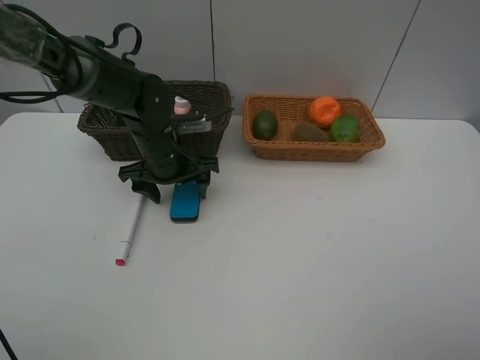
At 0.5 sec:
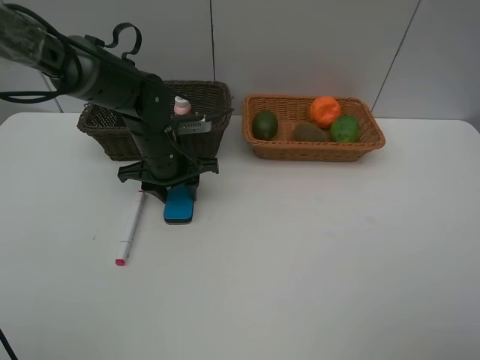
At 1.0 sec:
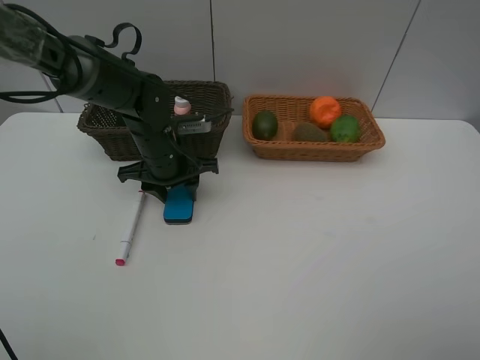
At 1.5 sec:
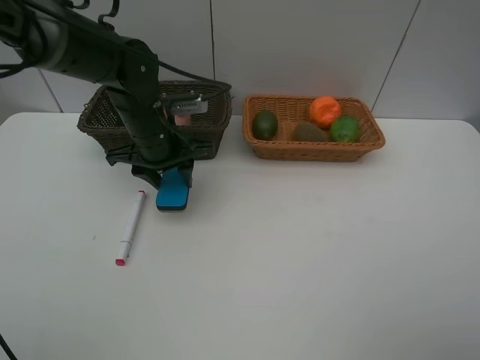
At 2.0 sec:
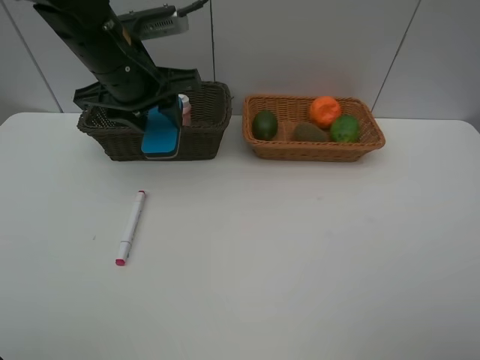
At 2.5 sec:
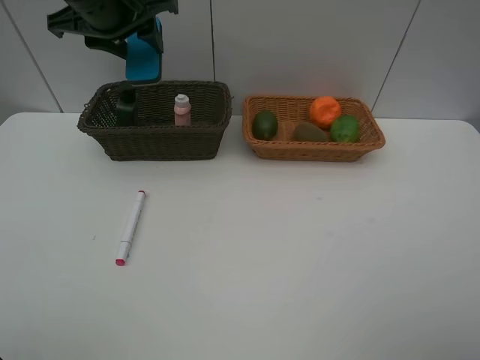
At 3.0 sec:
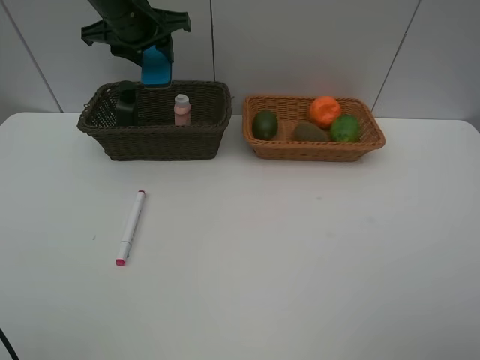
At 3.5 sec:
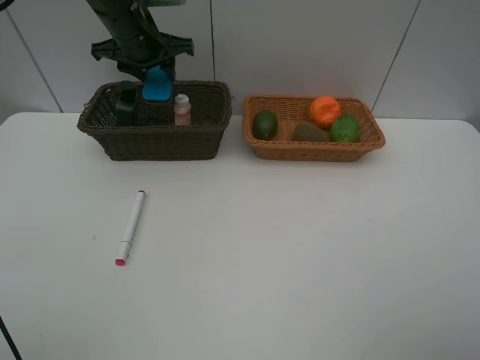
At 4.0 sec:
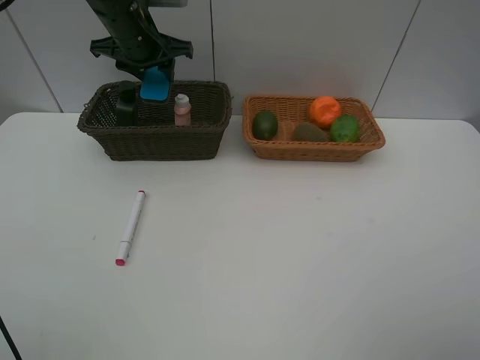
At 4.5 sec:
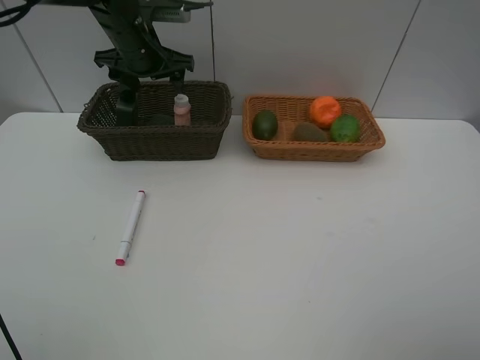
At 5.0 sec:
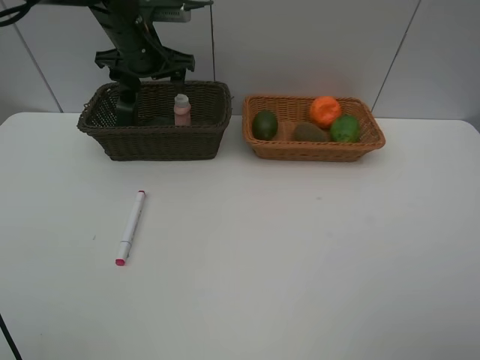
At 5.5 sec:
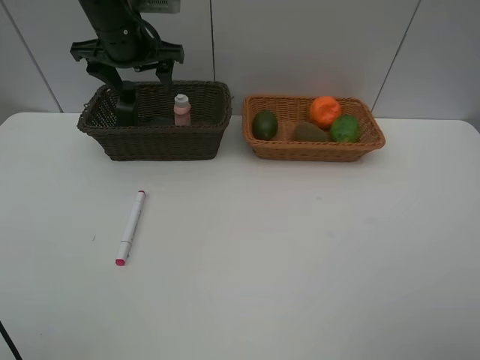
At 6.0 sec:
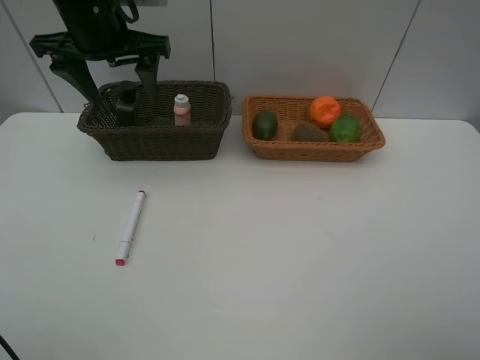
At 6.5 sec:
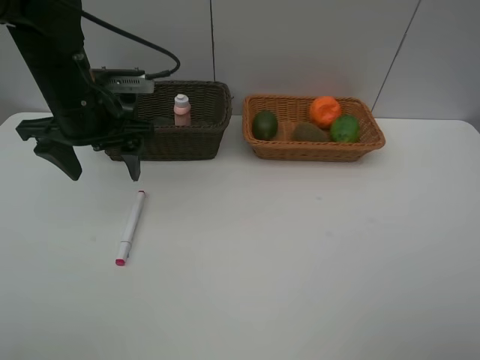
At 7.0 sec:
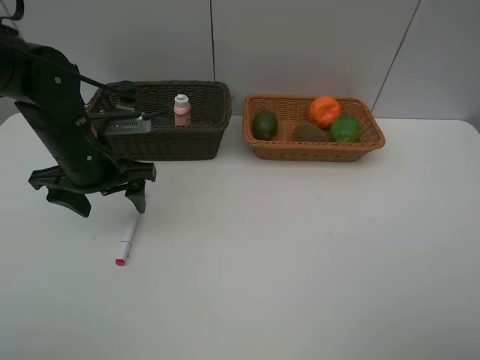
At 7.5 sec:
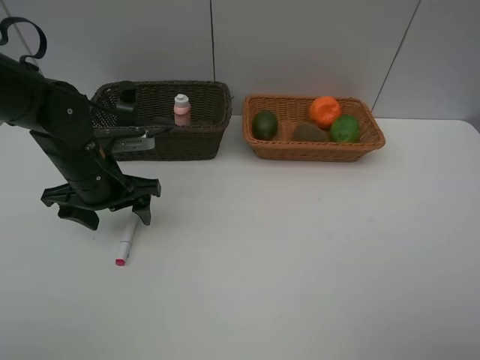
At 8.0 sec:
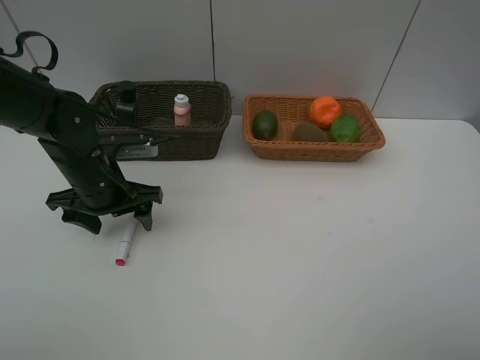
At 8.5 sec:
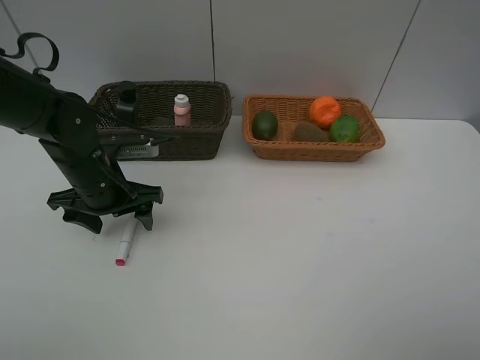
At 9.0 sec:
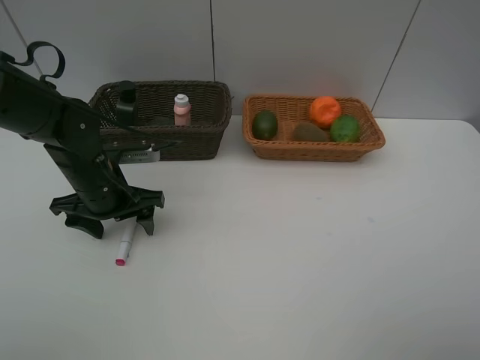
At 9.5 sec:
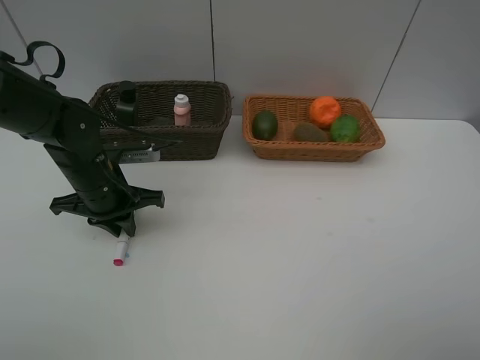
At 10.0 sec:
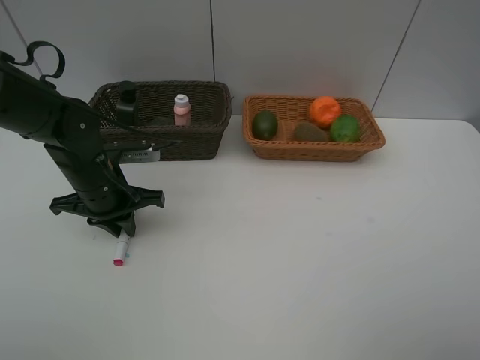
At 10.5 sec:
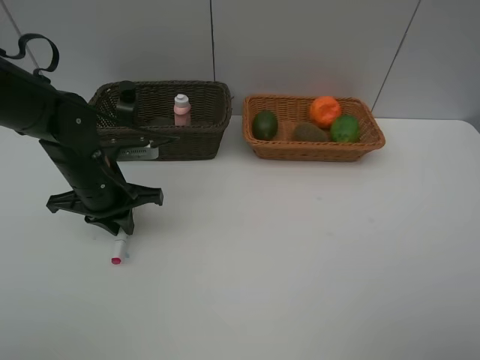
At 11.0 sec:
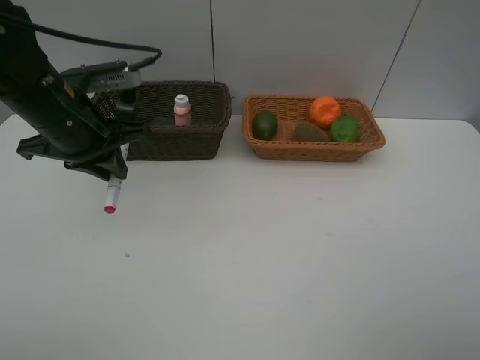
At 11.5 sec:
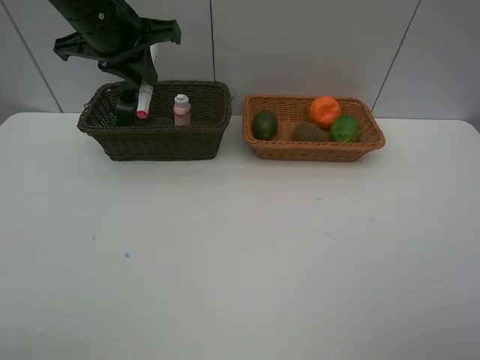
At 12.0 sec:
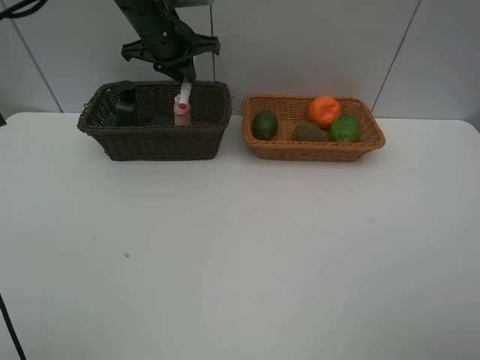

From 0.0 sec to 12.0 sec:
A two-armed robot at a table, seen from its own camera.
Task of the whole recording: Place multiple objects separately in different baskets.
Step, from 2.0 sec to 4.0 sec: Place the blackboard eraser in the dark basket with left gripper.
Step, from 4.5 sec to 10.5 sec: Pick up pink marker pen with left gripper.
From 0.0 sec to 2.0 sec: The left gripper moves upward, about 15 cm, and closes its fingers.
From 2.0 sec to 4.0 sec: The left gripper is displaced forward by approximately 15 cm.
From 4.0 sec to 6.0 sec: The left gripper travels backward and upward by approximately 10 cm, and opens up.
From 6.0 sec to 8.0 sec: The left gripper shifts about 20 cm downward and backward.
From 8.0 sec to 10.0 sec: The left gripper closes up.
From 10.0 sec to 12.0 sec: The left gripper shifts roughly 25 cm forward and upward.

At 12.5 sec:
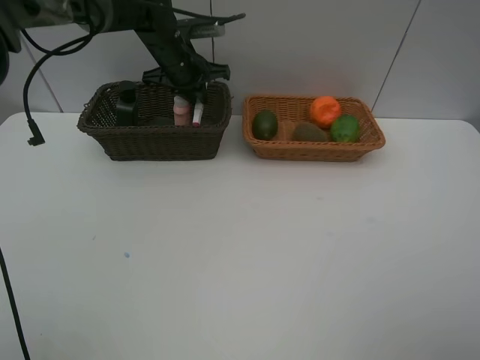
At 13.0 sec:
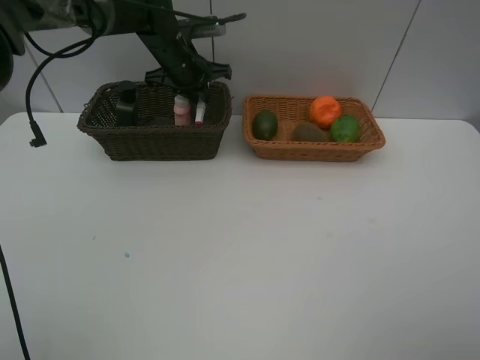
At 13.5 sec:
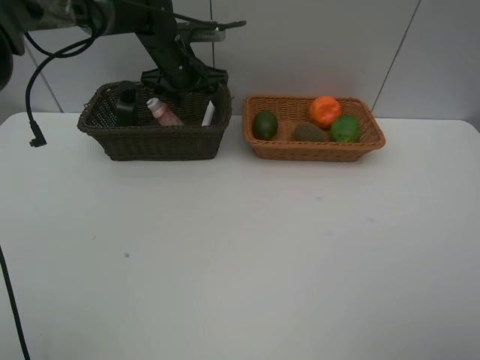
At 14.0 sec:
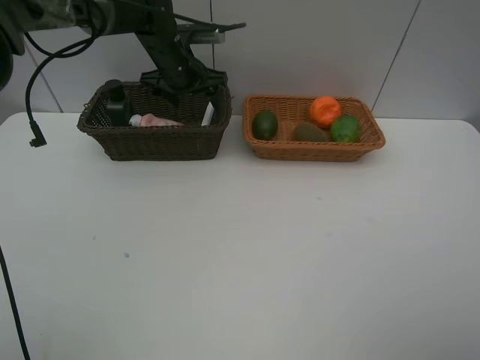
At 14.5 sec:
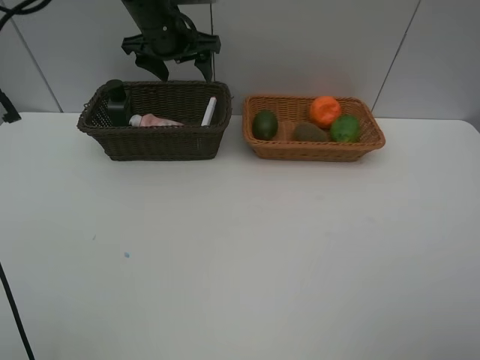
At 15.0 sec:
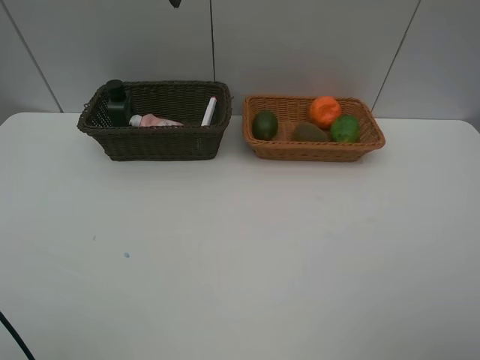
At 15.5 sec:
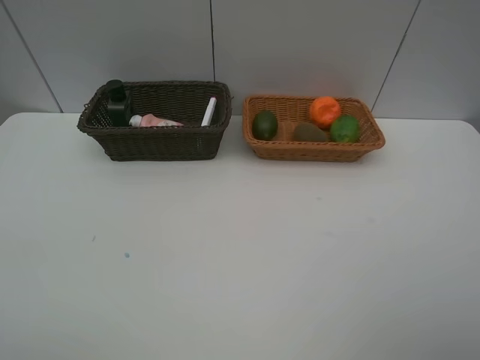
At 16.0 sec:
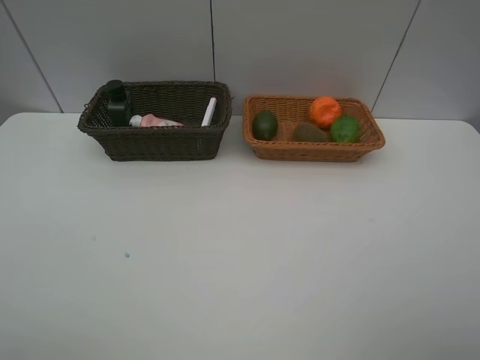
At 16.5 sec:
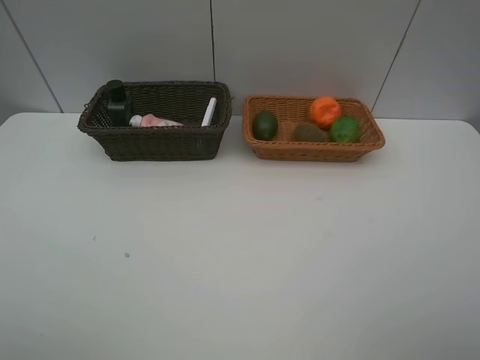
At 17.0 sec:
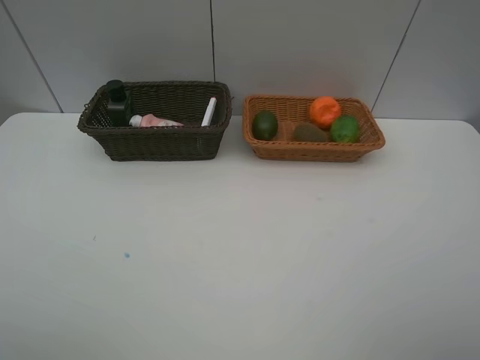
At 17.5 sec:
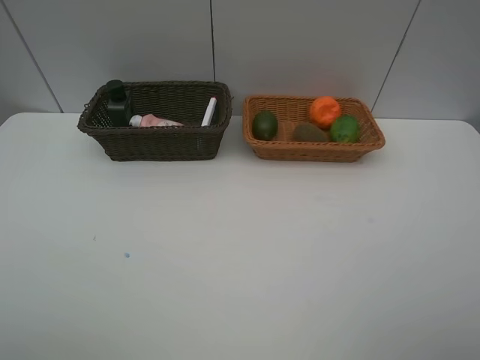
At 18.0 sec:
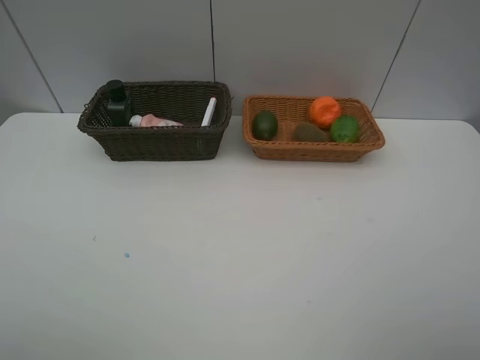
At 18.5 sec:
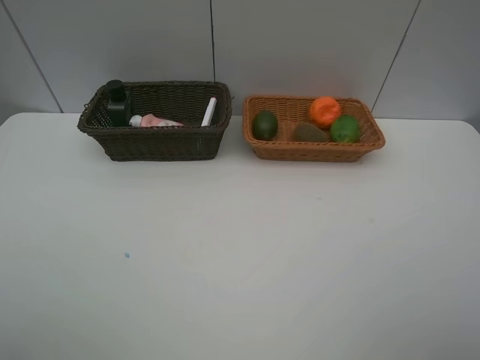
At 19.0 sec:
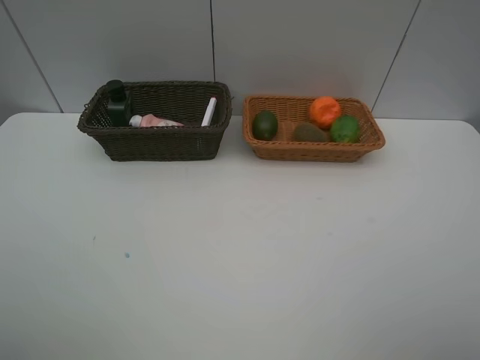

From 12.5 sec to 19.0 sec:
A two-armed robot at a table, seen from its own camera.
Task of the whole recording: Place multiple objects separately in different baskets.
From 12.5 sec to 14.5 sec: The left gripper goes roughly 10 cm upward, and opens.
From 14.5 sec to 17.0 sec: The left gripper goes about 50 cm backward and to the left.
